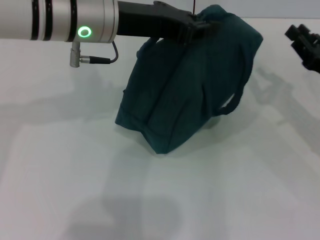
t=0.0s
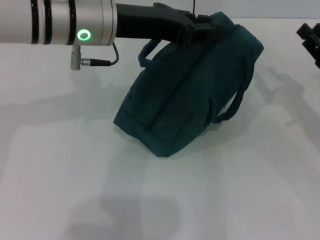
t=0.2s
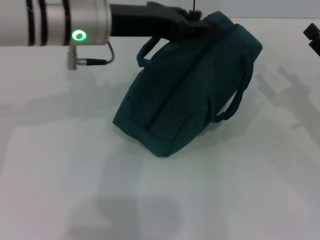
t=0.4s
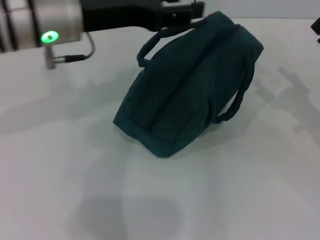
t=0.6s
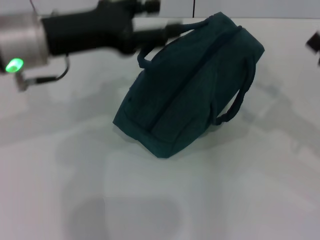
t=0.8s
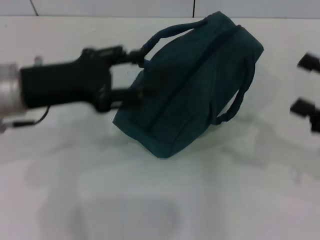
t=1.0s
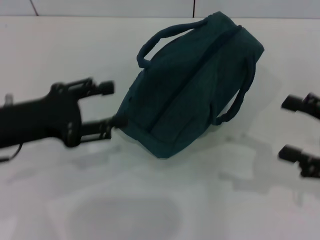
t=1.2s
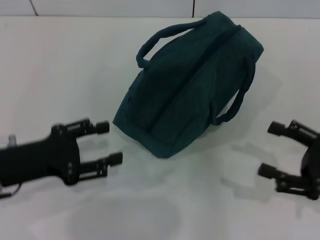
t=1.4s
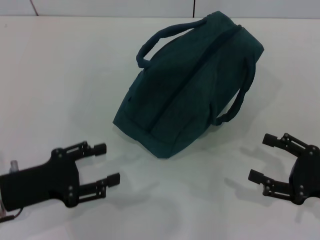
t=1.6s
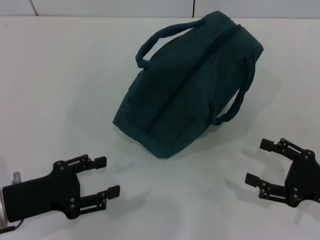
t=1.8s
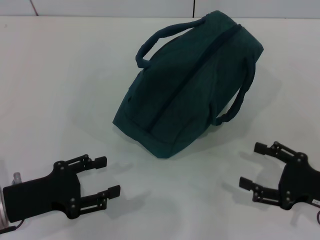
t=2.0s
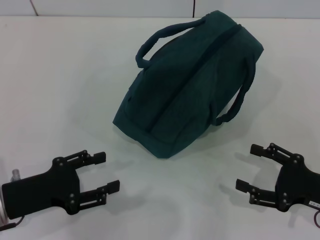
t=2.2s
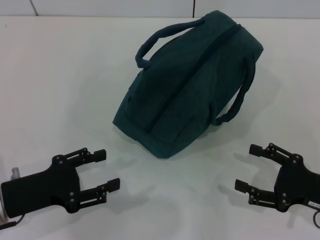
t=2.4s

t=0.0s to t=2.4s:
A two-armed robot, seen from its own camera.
Step, t=0.0s to t=0.2s: Hold the lunch bag with your left hand.
t=0.0s to t=1.2s: The left gripper is displaced to the left, backward and downward by roughly 20 cm, and opens. The right gripper travels backward by some 10 cm, and opens up.
t=1.2s to t=2.4s: The left gripper travels downward and backward by about 10 cm, while the right gripper heads downward, covering some 10 cm.
